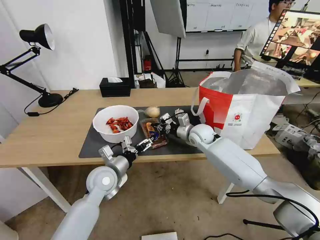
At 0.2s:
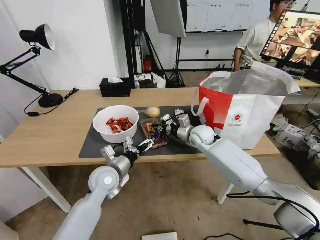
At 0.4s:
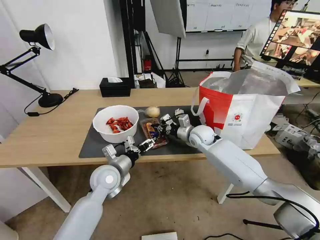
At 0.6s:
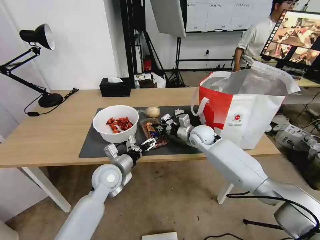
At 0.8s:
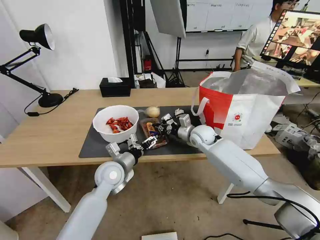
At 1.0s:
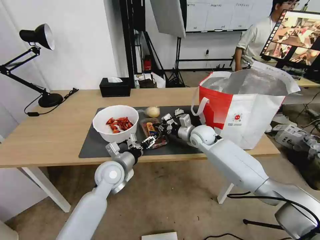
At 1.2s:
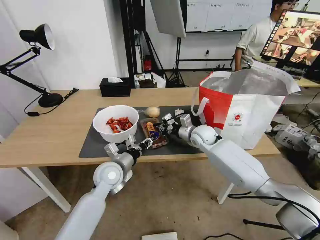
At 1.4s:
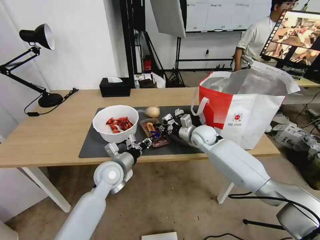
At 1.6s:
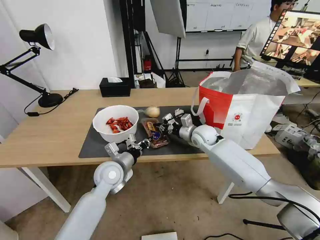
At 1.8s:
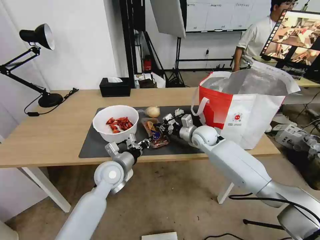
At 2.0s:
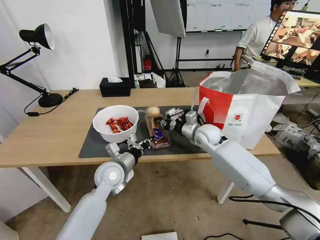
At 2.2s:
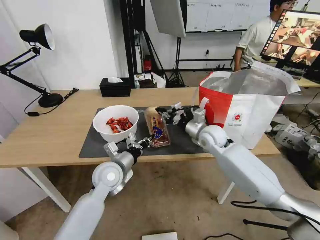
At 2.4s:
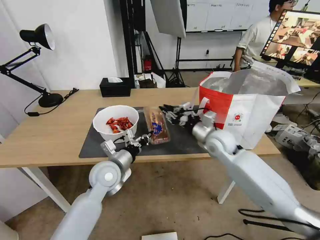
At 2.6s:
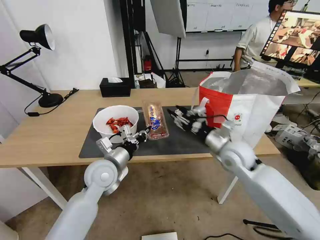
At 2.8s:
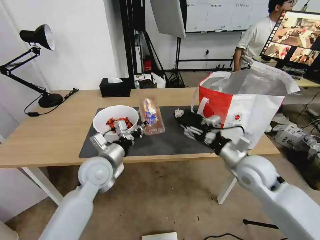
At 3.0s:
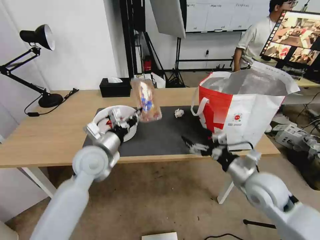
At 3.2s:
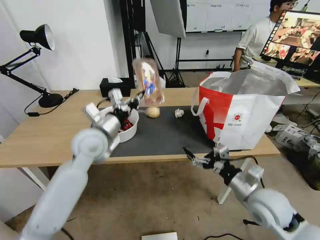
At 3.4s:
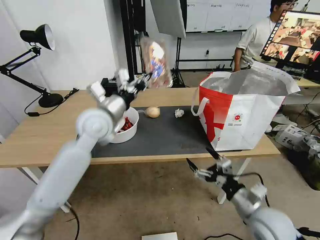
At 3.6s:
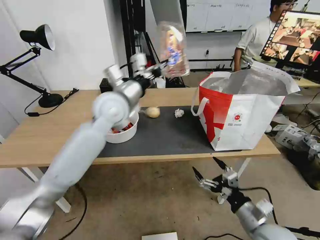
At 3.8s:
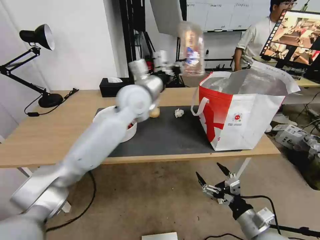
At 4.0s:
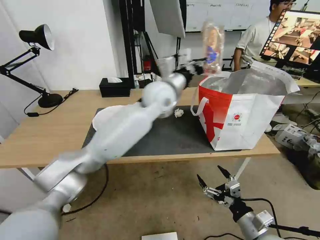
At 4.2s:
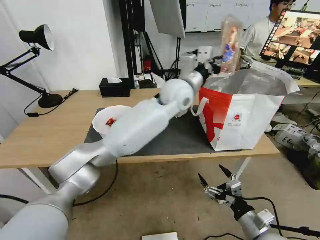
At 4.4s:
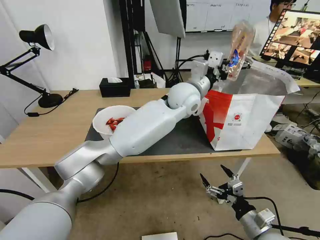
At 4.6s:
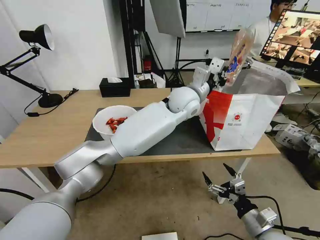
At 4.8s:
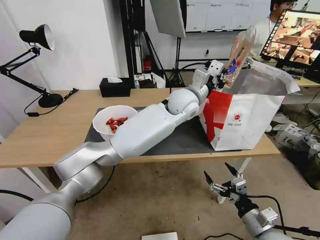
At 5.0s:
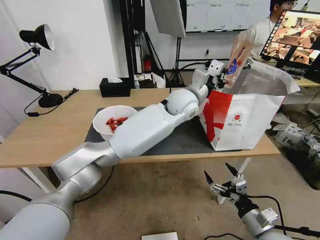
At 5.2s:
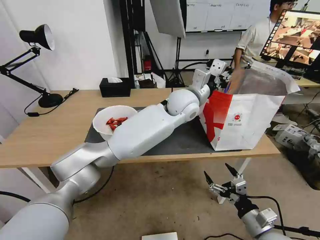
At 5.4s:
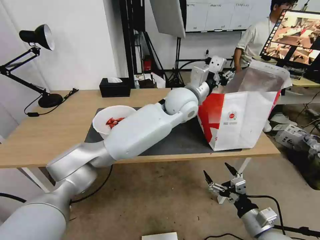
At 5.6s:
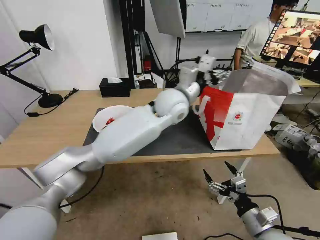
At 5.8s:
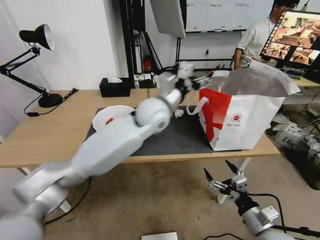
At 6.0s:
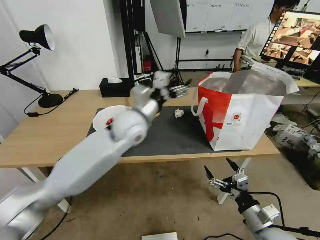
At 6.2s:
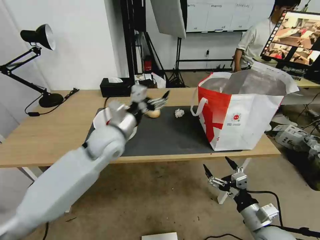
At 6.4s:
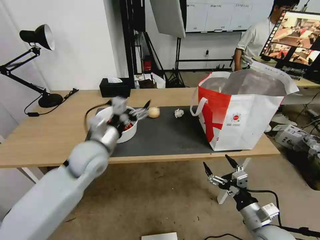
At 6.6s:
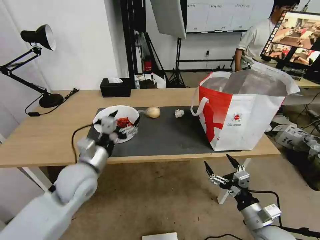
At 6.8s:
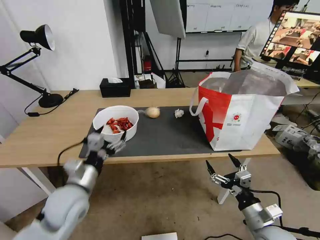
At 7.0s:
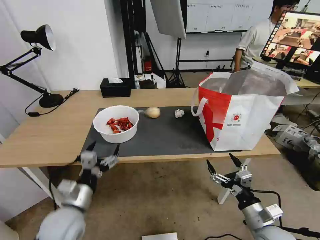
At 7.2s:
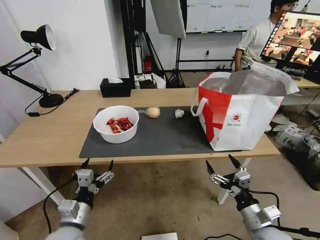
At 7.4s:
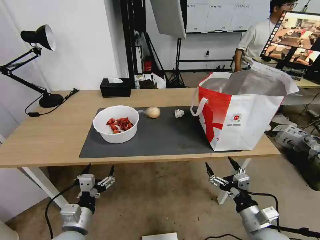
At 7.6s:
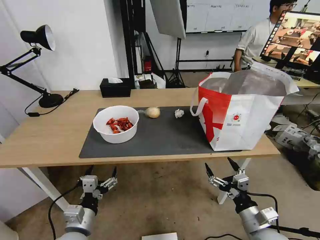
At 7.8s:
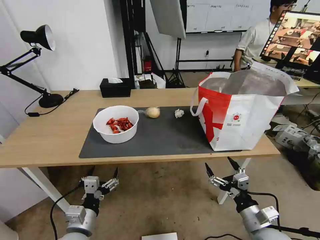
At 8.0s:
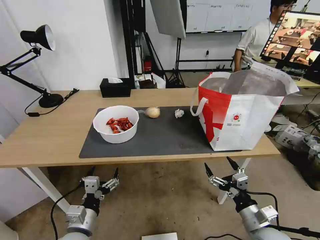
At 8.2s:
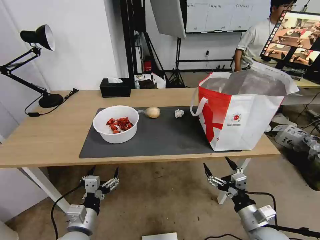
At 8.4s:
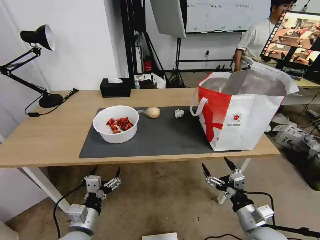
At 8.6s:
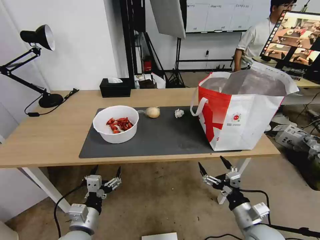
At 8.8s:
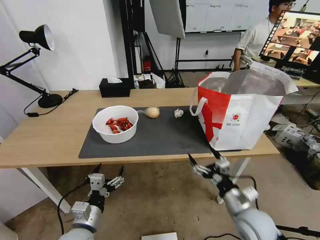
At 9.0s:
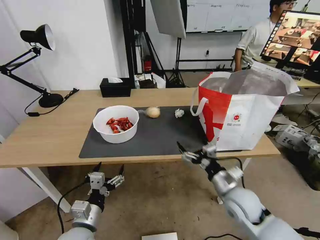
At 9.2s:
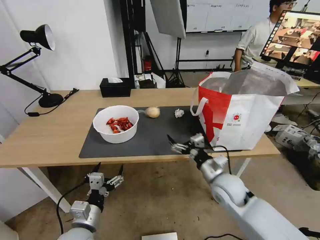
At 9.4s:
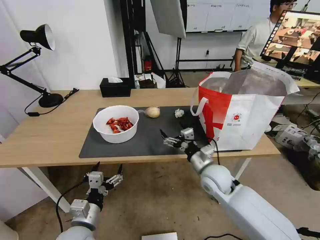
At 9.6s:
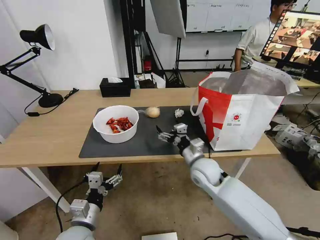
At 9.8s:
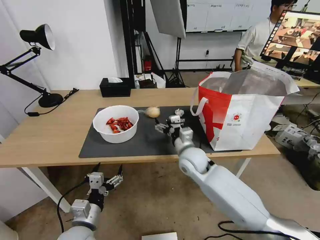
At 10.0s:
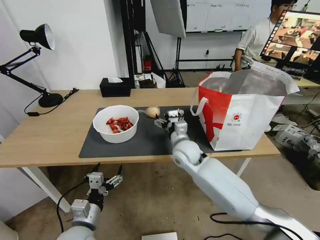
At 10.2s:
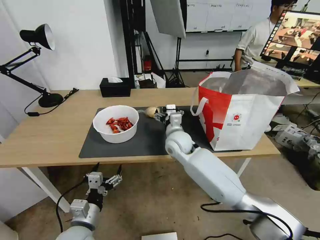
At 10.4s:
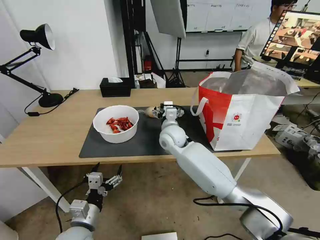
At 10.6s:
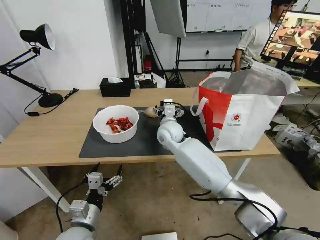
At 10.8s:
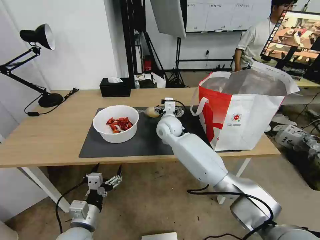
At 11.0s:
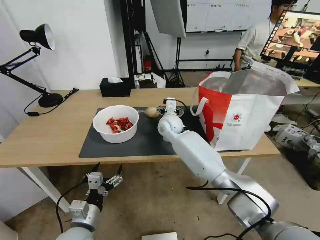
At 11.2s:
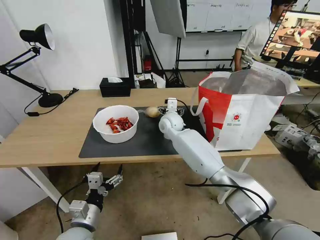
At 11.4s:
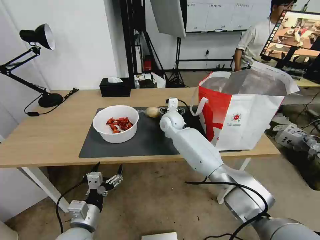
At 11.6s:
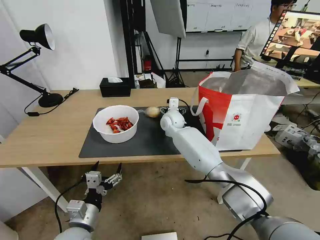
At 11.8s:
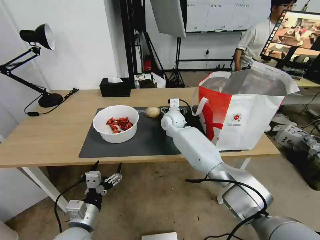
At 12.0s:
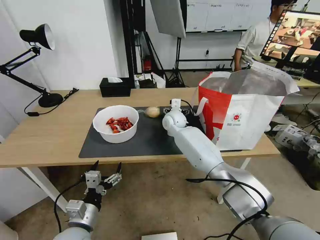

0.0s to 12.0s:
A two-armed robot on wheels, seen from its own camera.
Task of the whole recording: Pick up the trash from the table and place it into the takeout bag.
0.0s to 1.6s: The left gripper closes up.
1.6s to 3.0s: The left gripper goes roughly 10 cm upward. Meanwhile the right gripper goes roughly 25 cm backward and to the right, and opens its fingers.
3.0s to 4.4s: The right gripper is displaced backward and downward by roughly 20 cm. The left gripper travels to the right, forward and upward by approximately 35 cm.
4.4s to 6.0s: The left gripper moves to the left and backward, some 20 cm, and opens up.
6.0s to 7.6s: The left gripper shifts approximately 35 cm backward, downward and to the left.
7.6s to 9.0s: The right gripper heads forward and to the left, covering roughly 10 cm.
9.0s to 10.4s: The right gripper goes some 30 cm forward and to the left.
10.4s to 12.0s: The right gripper is displaced forward by about 10 cm.

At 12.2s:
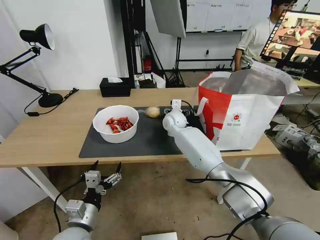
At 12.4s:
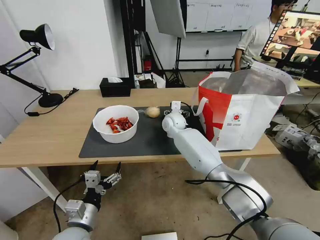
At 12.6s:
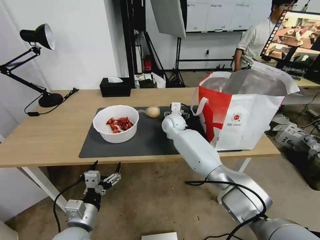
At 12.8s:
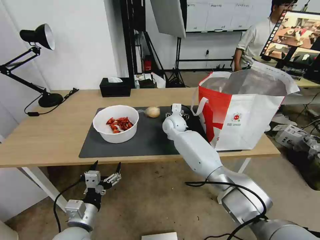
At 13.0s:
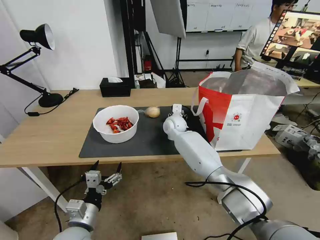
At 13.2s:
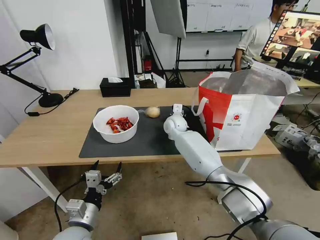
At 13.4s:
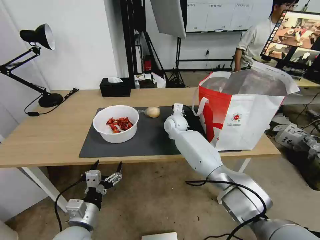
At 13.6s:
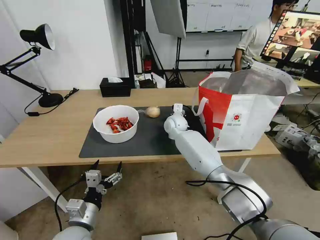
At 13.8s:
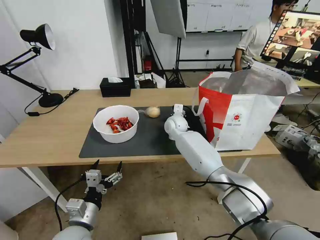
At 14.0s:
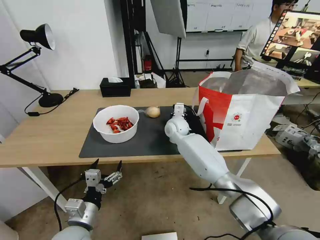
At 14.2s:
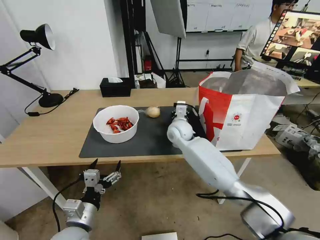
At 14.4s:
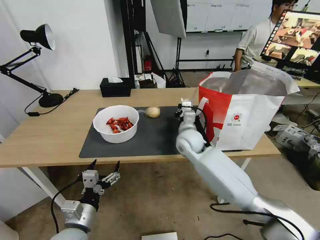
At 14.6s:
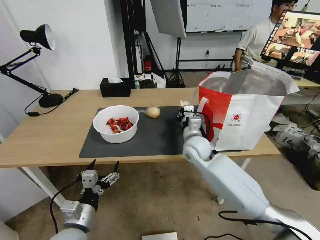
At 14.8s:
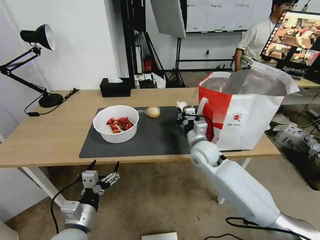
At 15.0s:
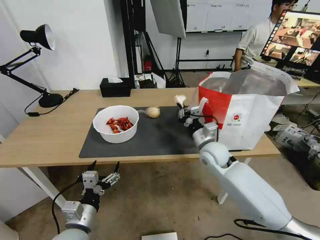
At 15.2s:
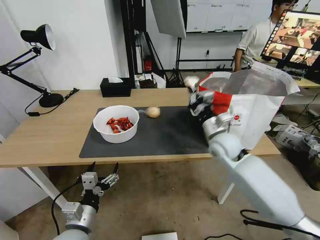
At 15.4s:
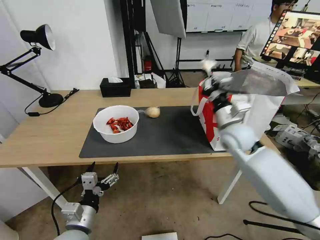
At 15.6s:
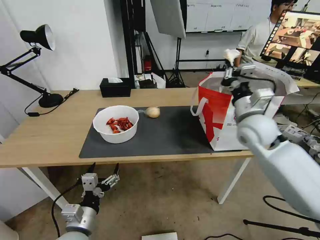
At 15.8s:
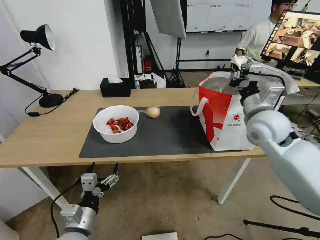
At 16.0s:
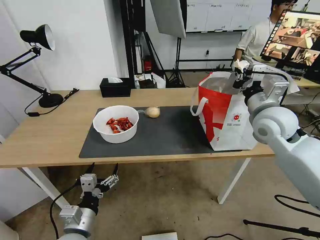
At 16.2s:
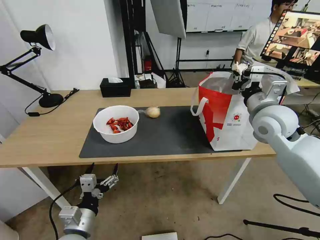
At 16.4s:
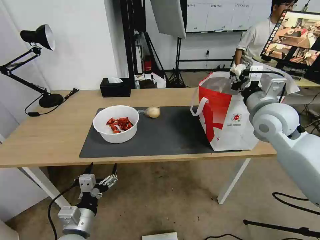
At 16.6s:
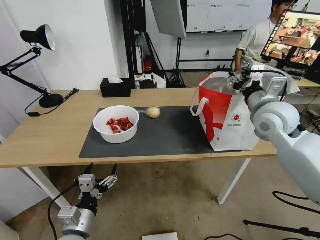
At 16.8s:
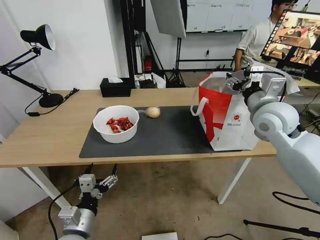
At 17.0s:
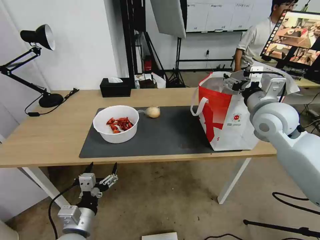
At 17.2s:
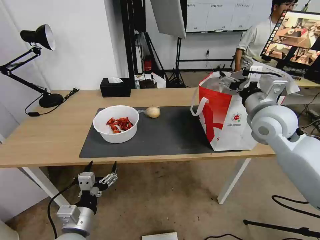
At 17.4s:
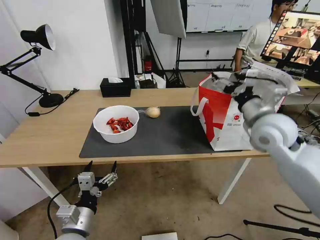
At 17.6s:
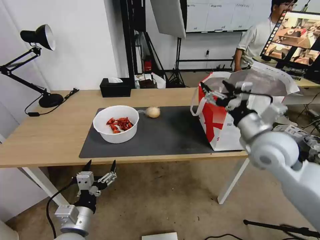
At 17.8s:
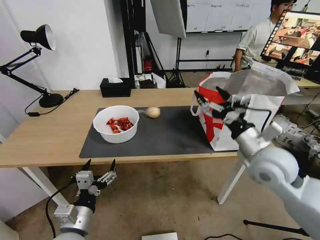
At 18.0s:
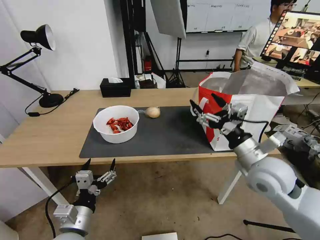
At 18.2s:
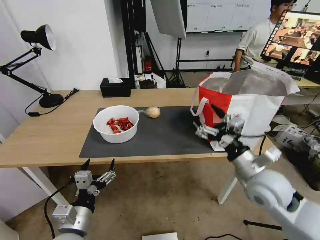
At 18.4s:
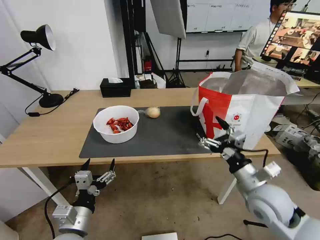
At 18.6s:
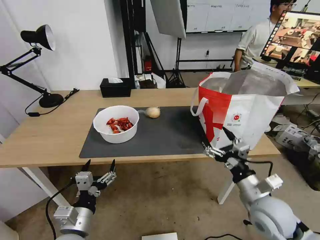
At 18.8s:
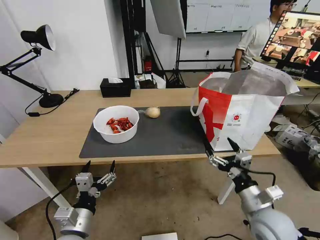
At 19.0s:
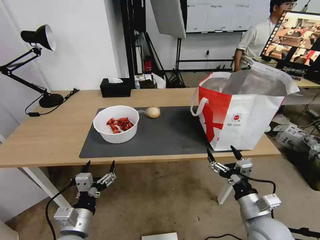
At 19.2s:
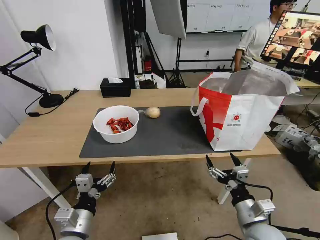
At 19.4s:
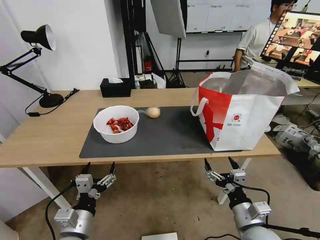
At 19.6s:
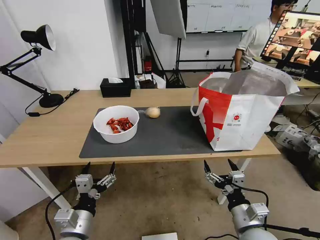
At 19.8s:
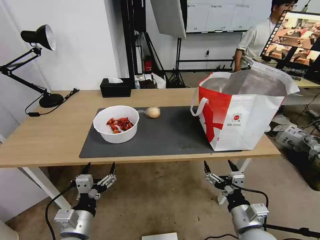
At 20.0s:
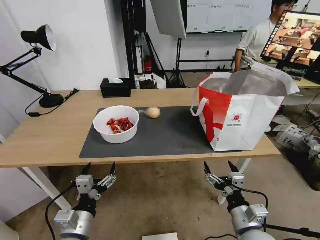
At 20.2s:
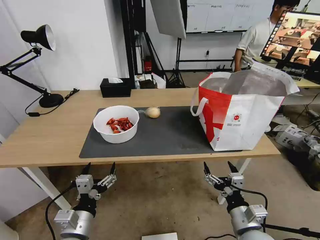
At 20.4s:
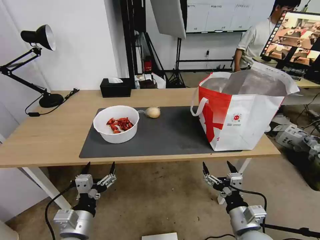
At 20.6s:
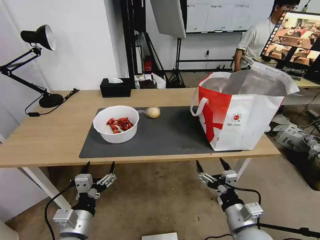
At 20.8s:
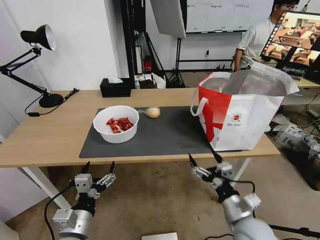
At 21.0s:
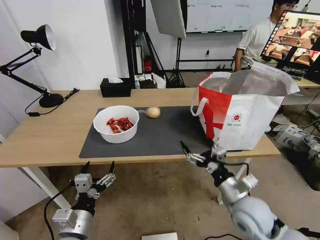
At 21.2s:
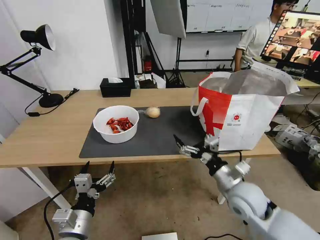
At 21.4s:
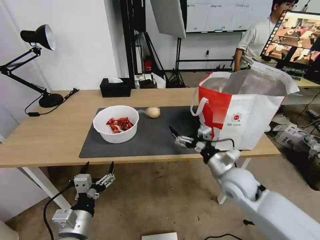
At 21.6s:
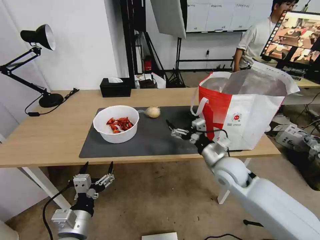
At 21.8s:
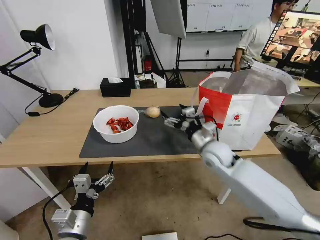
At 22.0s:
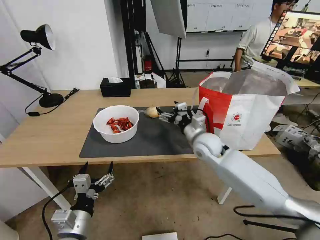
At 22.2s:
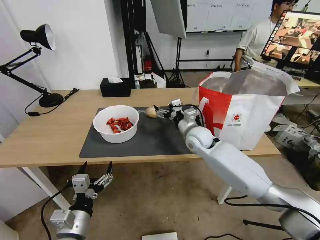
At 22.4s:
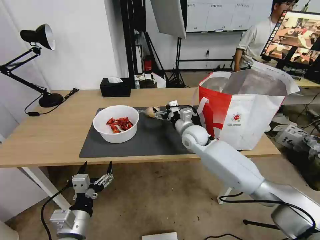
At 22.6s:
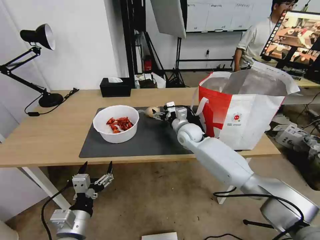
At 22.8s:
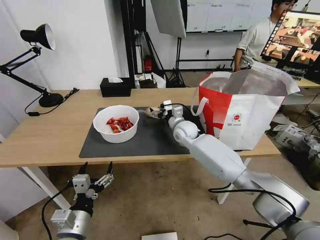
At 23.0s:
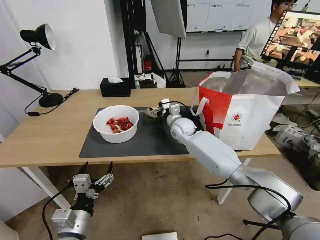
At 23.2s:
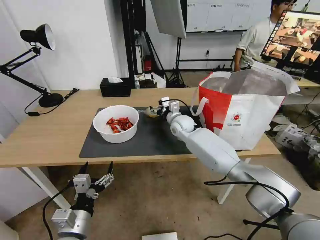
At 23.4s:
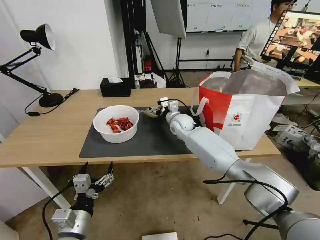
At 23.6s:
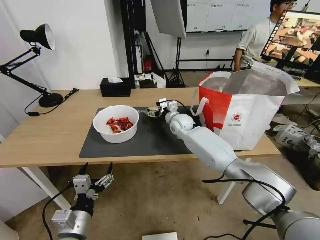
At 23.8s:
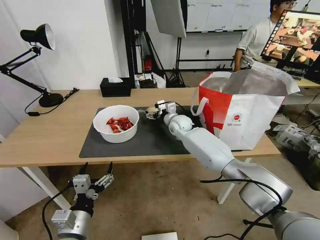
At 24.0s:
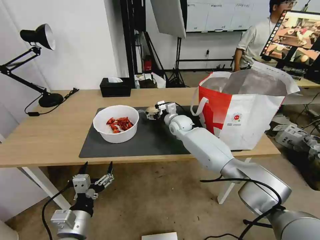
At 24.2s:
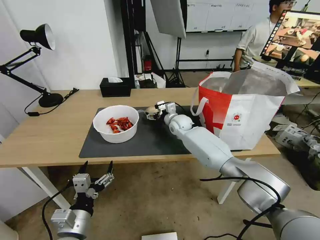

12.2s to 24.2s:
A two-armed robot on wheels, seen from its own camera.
Task of the whole recording: Pick up the trash from the table and place it into the takeout bag.
12.2s to 13.8s: The right gripper closes up.
13.8s to 15.2s: The right gripper heads backward and to the right, covering about 20 cm.
15.2s to 16.6s: The right gripper shifts approximately 15 cm upward and to the right, and opens its fingers.
16.6s to 18.2s: The right gripper moves backward and downward, about 20 cm, and opens its fingers.
18.2s to 19.8s: The right gripper is displaced backward and downward by some 15 cm.
19.8s to 21.2s: The right gripper shifts some 10 cm forward and upward.
21.2s to 22.6s: The right gripper is displaced forward and to the left by about 30 cm.
22.6s to 24.2s: The right gripper goes about 5 cm forward.
